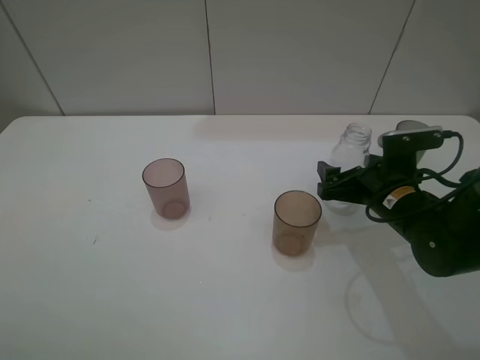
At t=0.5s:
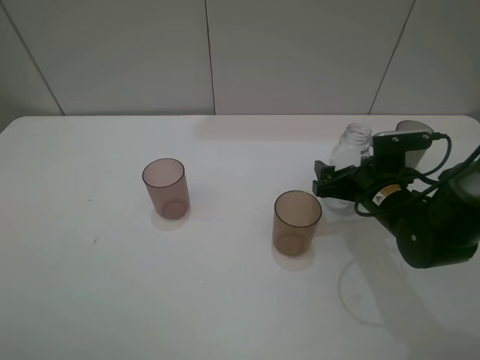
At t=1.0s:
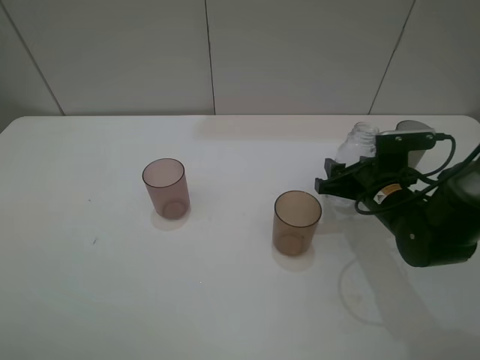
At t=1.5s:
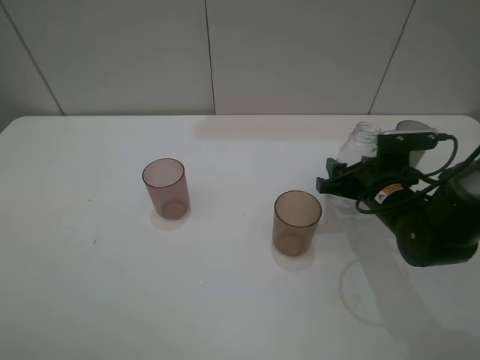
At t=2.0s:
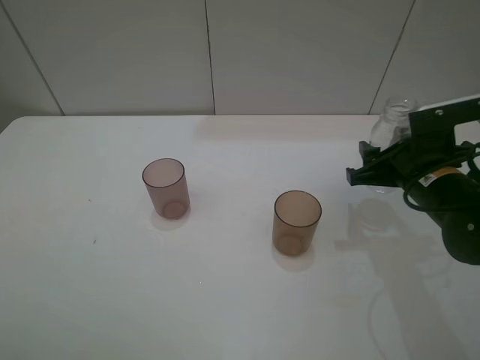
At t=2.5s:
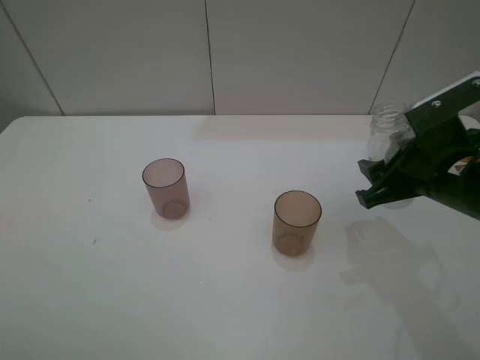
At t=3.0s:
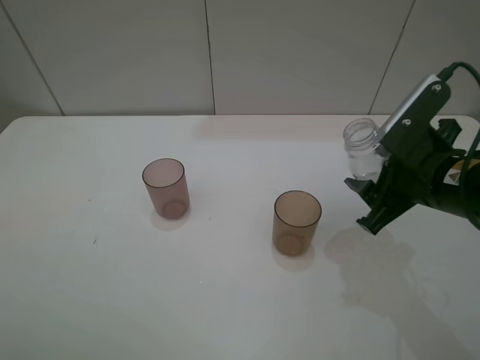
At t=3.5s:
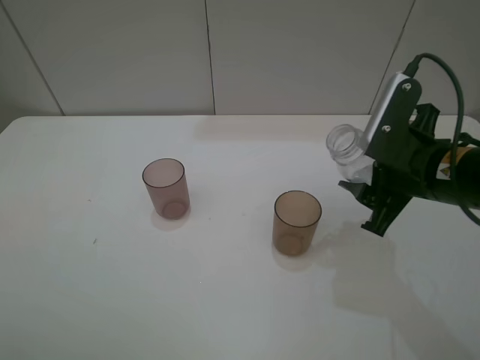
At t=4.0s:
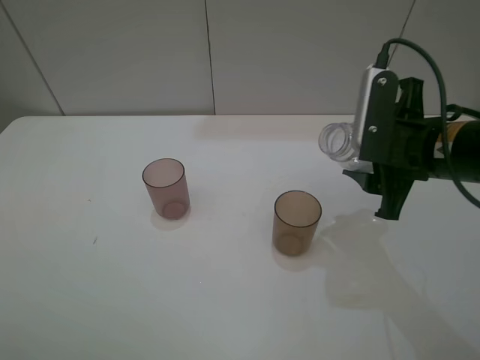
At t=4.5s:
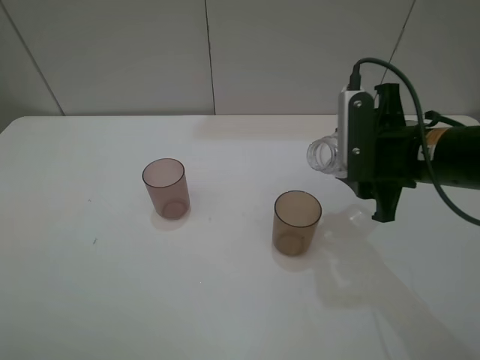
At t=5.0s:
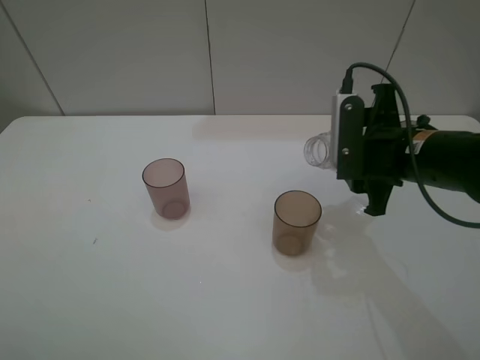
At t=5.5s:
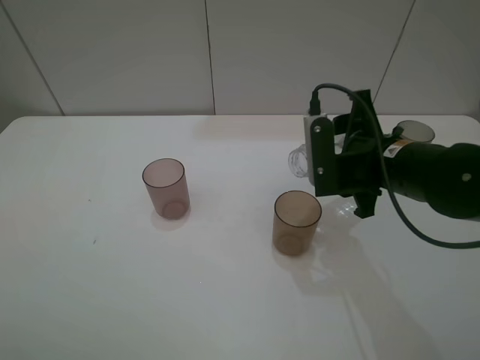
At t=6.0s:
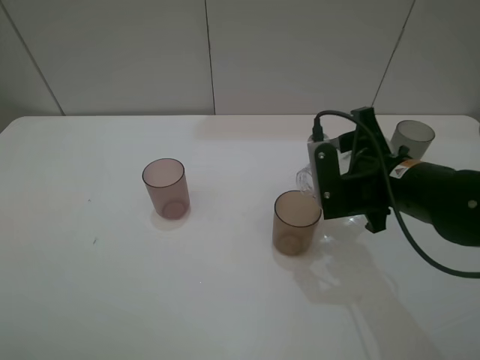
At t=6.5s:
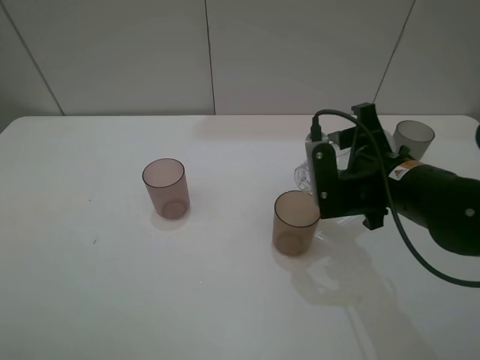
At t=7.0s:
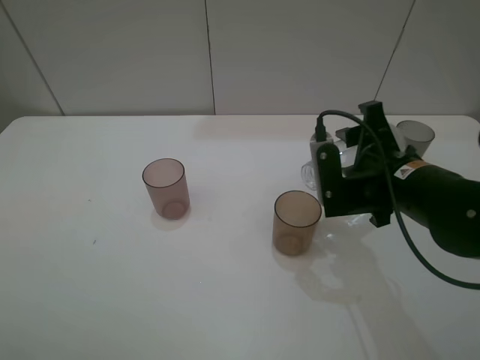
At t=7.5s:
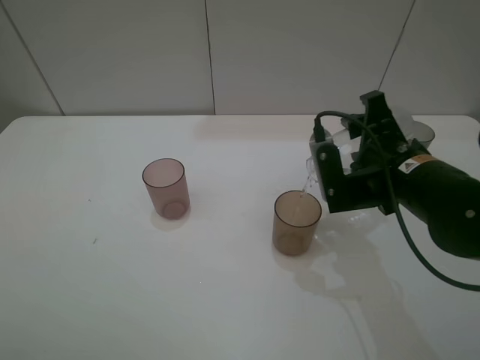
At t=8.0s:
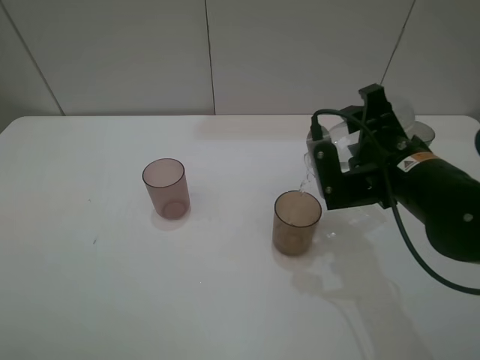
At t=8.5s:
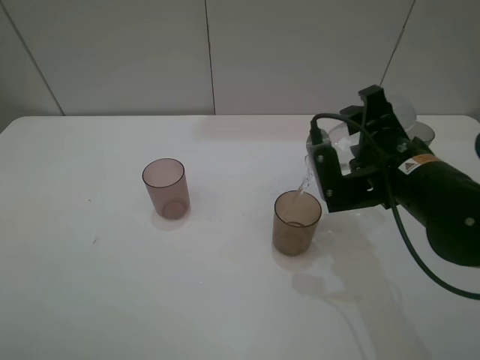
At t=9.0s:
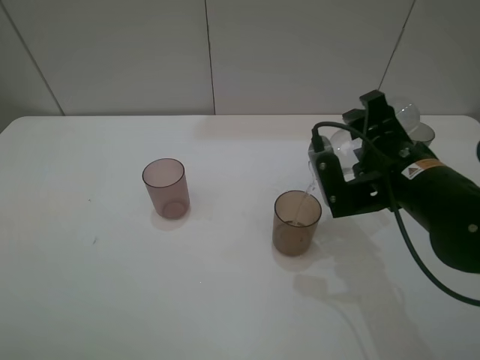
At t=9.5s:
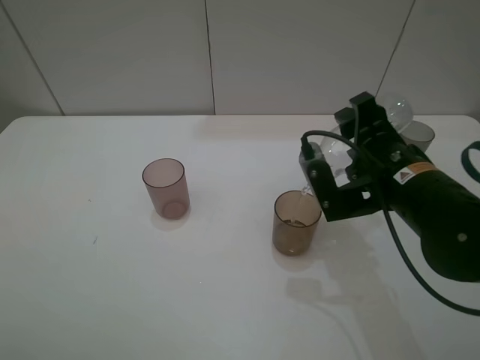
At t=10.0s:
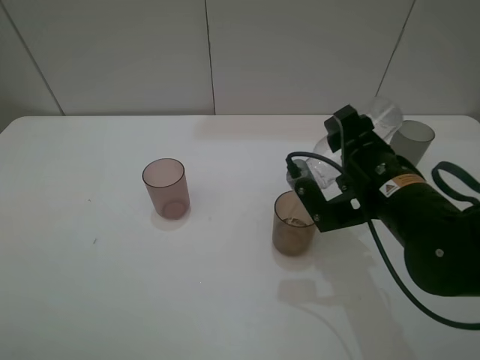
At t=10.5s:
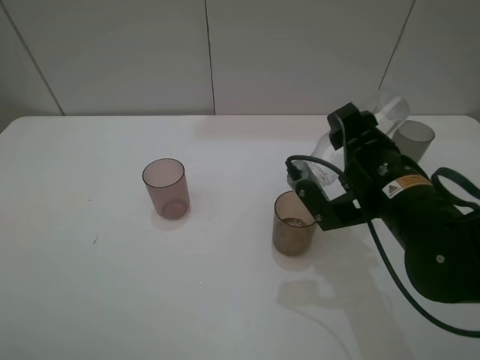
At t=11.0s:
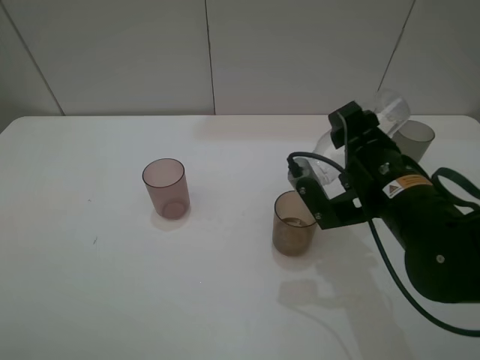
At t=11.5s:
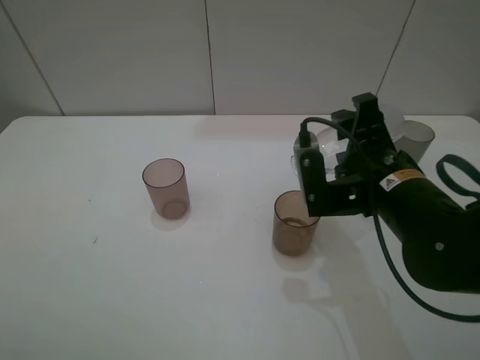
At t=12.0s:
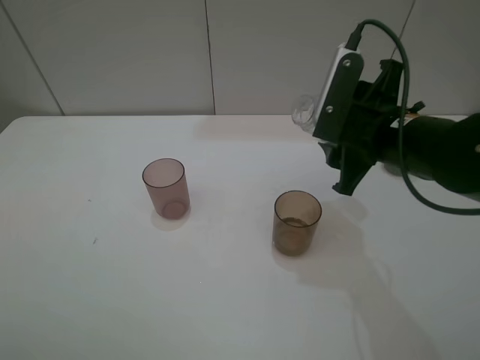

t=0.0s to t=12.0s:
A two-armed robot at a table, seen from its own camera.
Task of the whole recording: pick up the bottle filled with water and pour water into the middle cup of the three cups.
Step, t=1.5s to t=7.0s: Pour water from transparent bottle to red cup with the right gripper.
t=0.0s to t=2.0s: The right gripper heads upward, covering some 5 cm, and closes up.
t=2.0s to t=4.0s: The right gripper goes about 5 cm upward.
t=4.0s to t=6.0s: The right gripper moves some 5 cm.
t=6.0s to t=8.0s: The grippers stay close to where they were, moving slightly.
t=8.0s to t=10.0s: The grippers stay close to where they were, moving slightly.
t=10.0s to t=12.0s: The right gripper shifts by some 5 cm.

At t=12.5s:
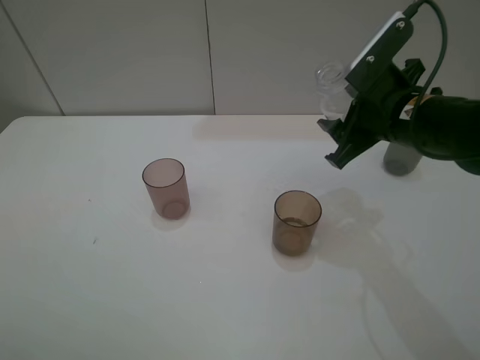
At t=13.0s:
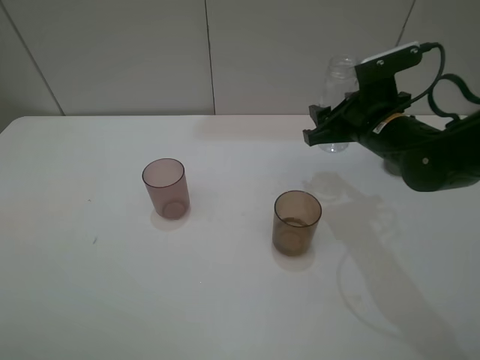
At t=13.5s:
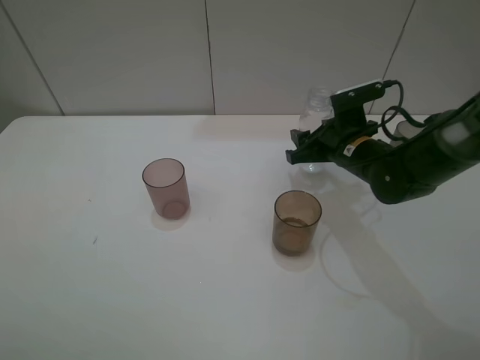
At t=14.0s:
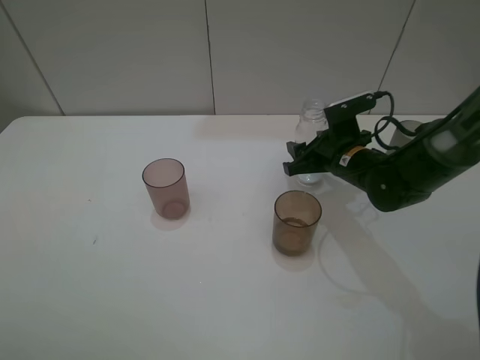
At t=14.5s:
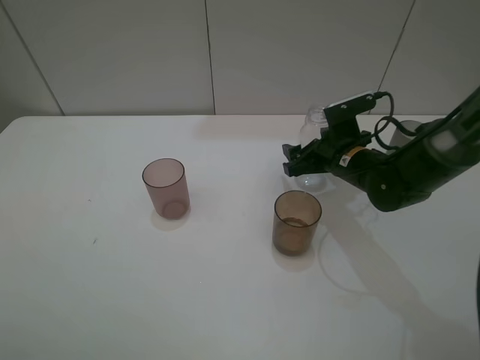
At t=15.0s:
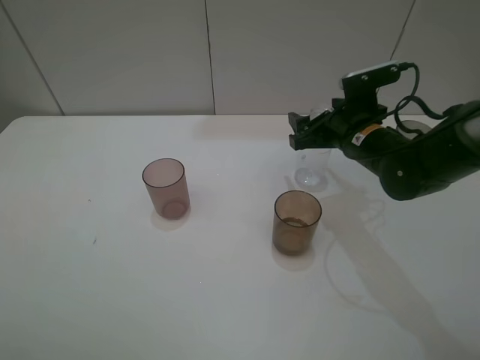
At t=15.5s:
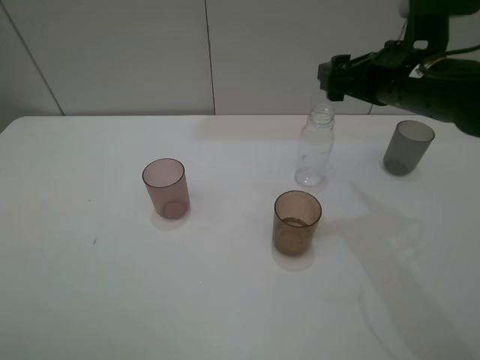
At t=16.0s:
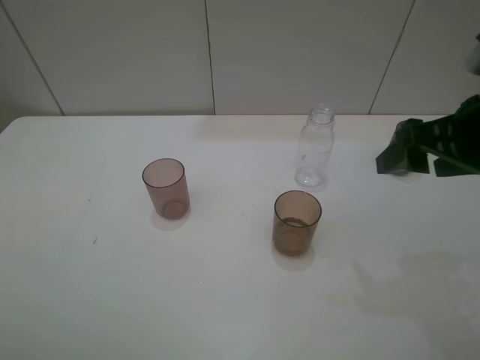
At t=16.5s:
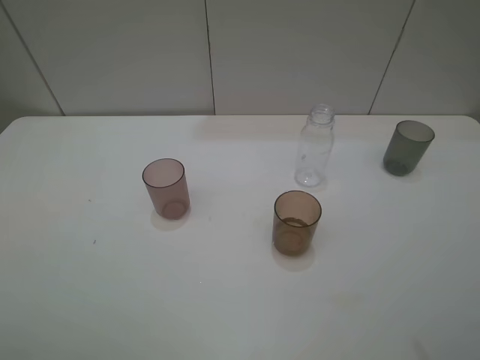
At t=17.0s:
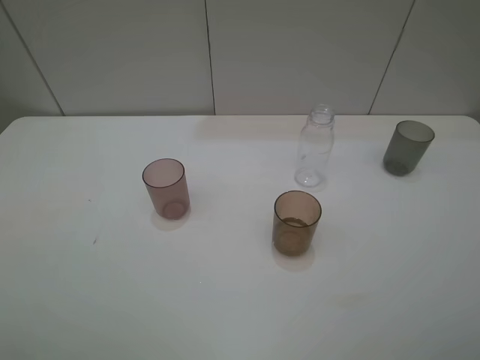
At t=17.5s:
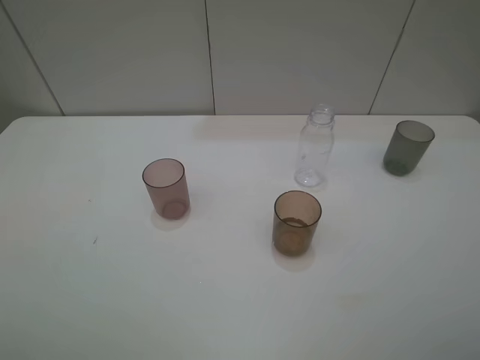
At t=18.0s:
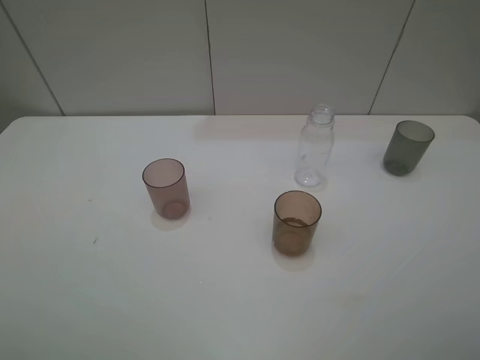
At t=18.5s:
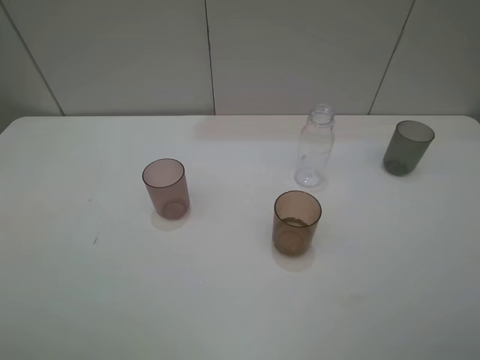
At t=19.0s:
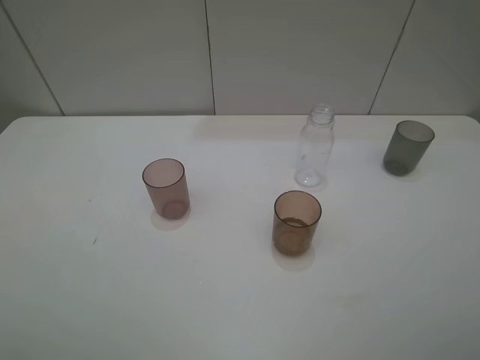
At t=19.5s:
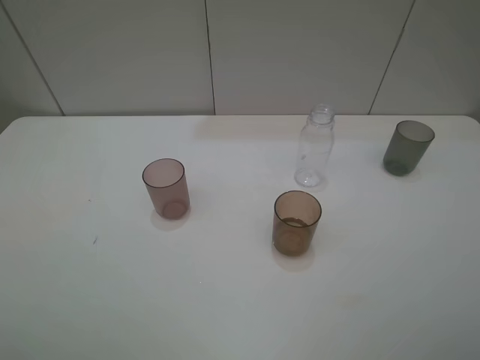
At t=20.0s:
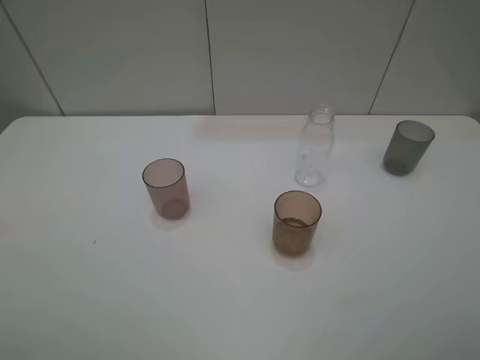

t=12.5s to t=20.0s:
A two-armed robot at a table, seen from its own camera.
Task of the whole recording: pick up the bottle filled with water and pour water into the middle cup of the three cups.
Step, t=12.5s to t=15.5s: Place the transparent bottle with the right gripper.
t=12.5s to t=14.5s: The right gripper goes about 10 cm downward and forward, and opens its fingers.
t=14.5s to t=16.5s: The right gripper travels backward and upward by roughly 35 cm.
t=18.0s to t=20.0s: Neither gripper changes place.
